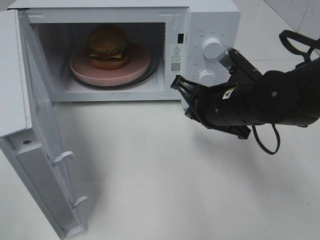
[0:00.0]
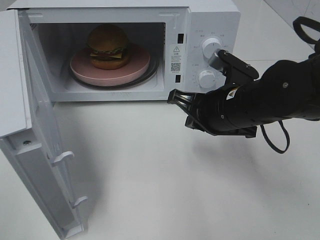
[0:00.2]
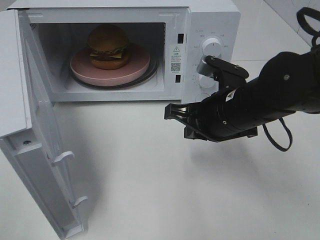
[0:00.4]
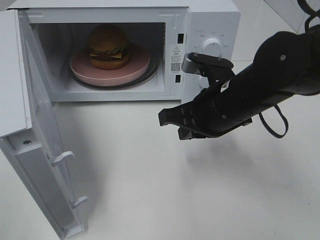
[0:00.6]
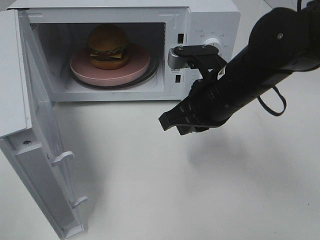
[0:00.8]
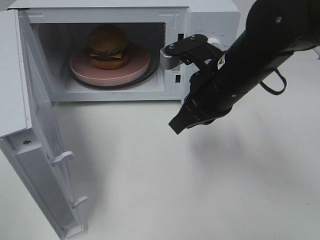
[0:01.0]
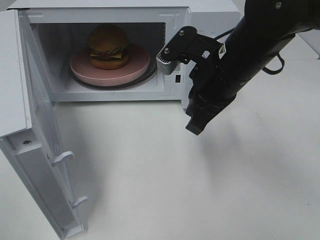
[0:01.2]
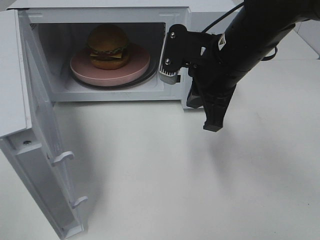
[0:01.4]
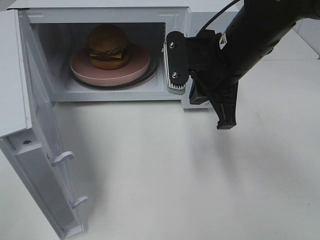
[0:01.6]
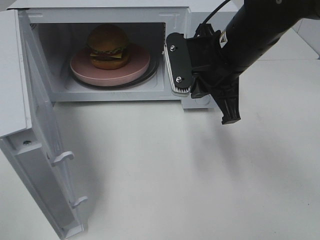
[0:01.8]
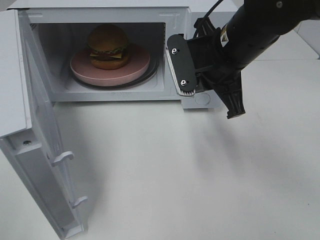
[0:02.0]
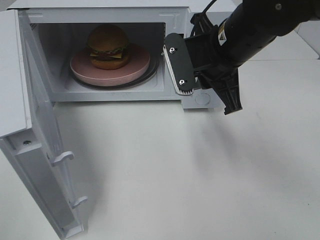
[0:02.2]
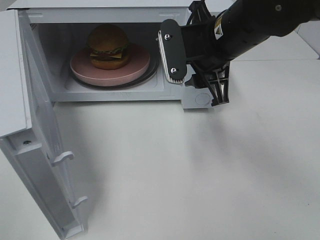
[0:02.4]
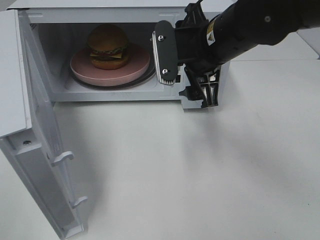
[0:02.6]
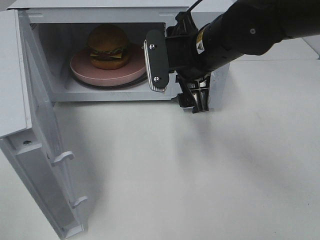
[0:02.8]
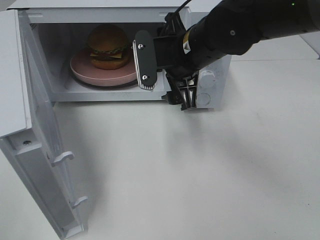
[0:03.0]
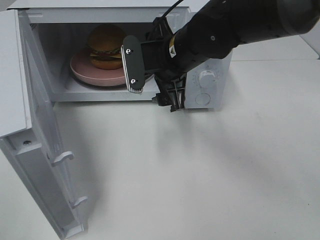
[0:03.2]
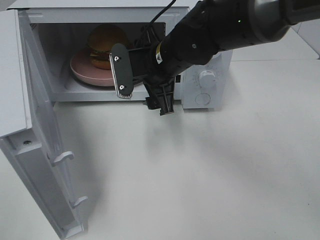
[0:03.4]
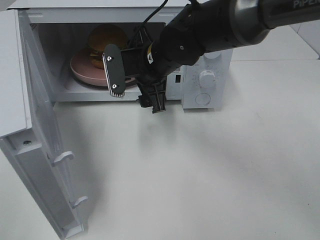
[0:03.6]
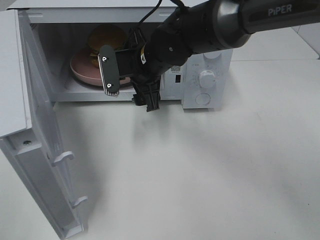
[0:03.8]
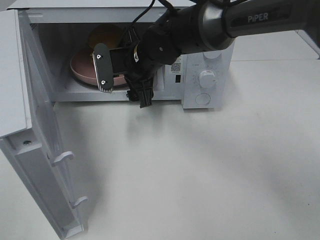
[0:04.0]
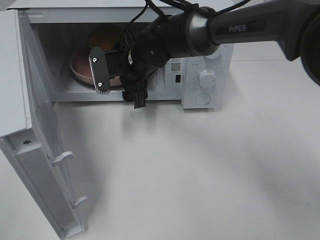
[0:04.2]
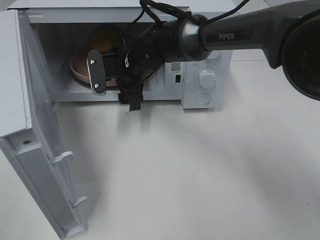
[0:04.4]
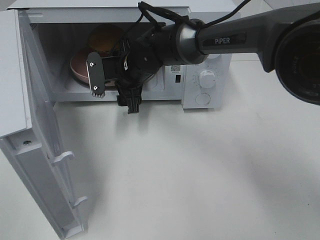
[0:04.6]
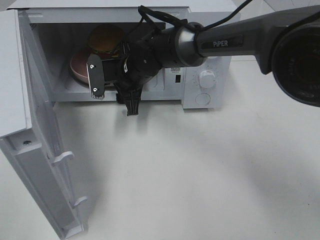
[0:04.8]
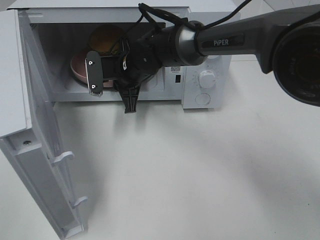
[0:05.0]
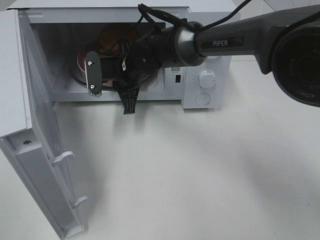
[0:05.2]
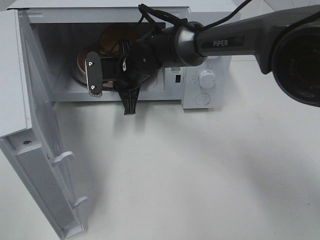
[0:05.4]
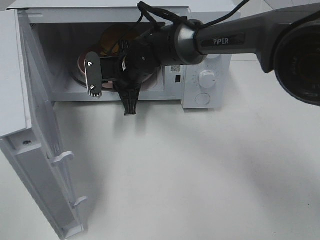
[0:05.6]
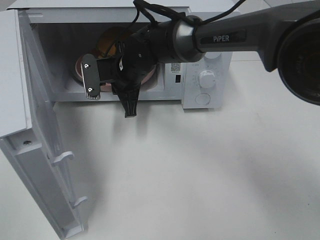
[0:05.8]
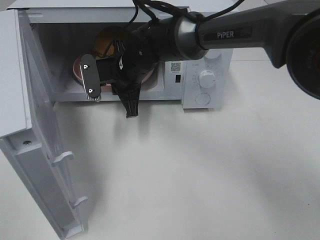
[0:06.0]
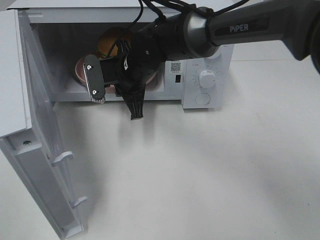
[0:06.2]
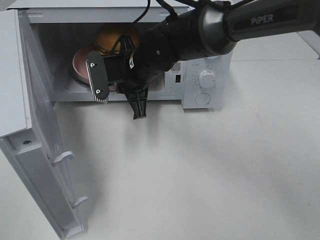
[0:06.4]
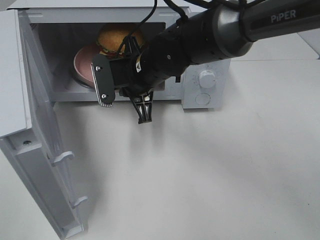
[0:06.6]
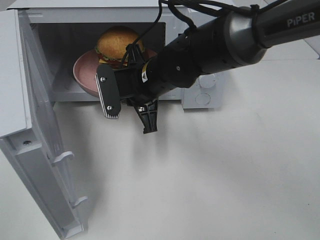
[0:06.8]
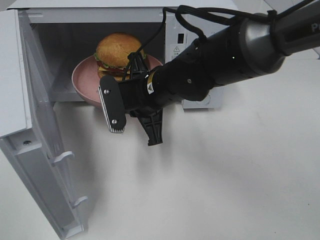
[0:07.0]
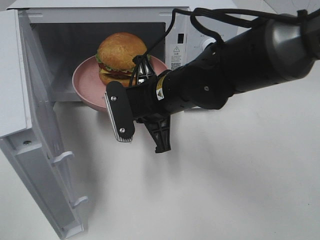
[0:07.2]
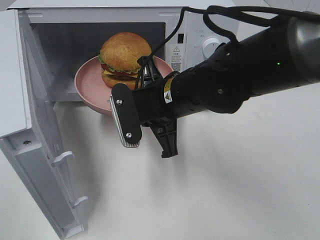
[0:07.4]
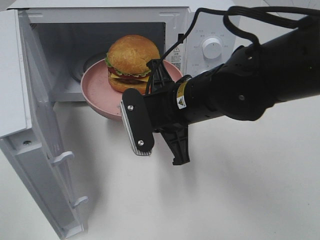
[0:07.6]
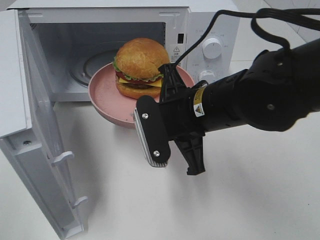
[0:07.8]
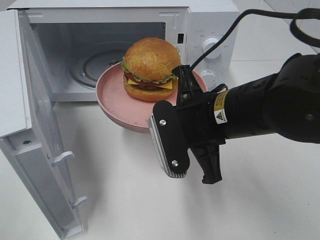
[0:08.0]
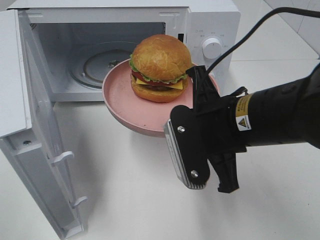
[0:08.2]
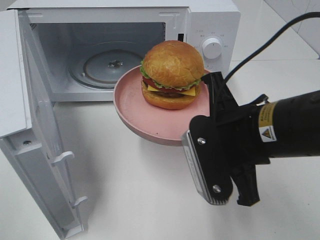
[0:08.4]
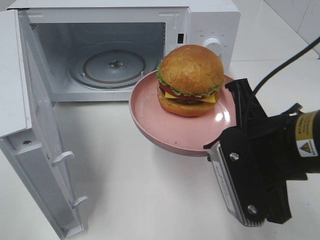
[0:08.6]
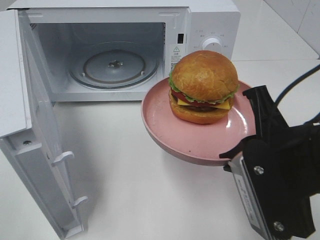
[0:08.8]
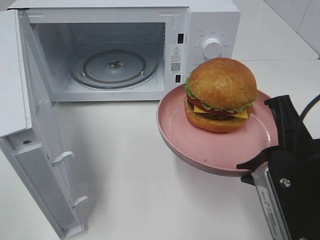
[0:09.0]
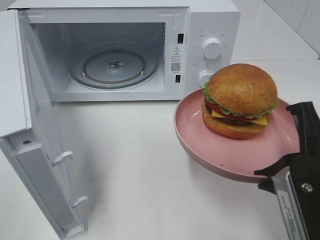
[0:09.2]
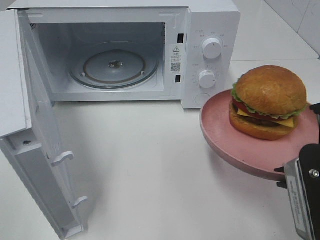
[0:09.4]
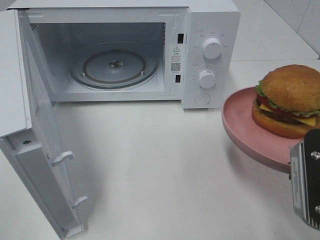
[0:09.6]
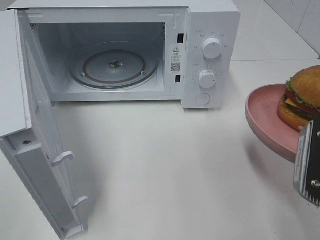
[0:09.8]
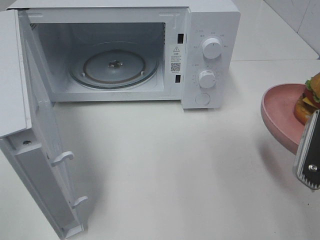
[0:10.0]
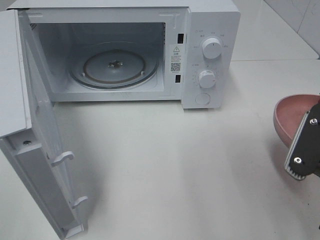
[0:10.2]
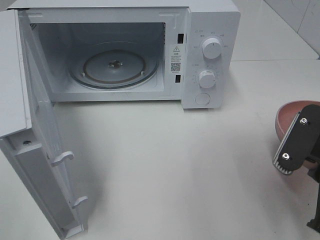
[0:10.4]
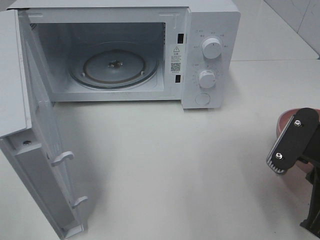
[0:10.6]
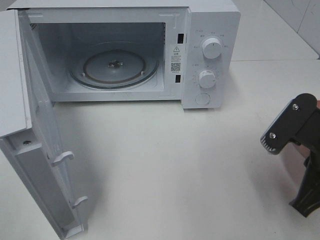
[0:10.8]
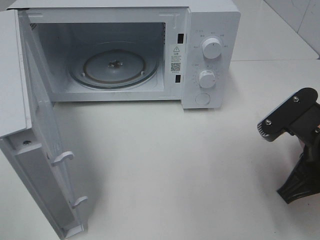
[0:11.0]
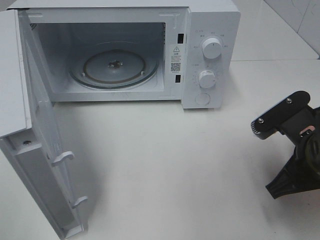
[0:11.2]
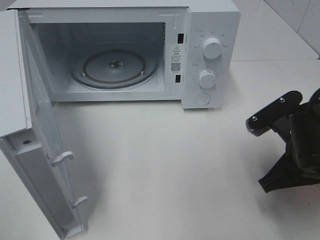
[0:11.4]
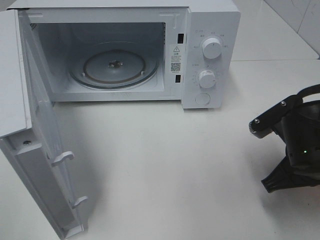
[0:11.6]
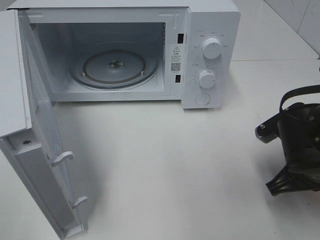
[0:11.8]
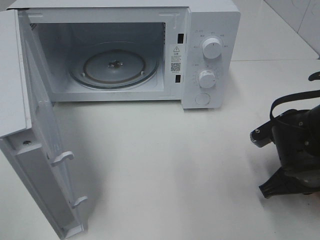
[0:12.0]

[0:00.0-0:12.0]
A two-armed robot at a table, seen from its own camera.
Task of the whole recording: Heat the burger.
Step, 0:00.0 to 0:05.0: Right hand: grab the plate with the hamburger.
0:00.0 to 0:01.6: The right gripper moves upward, about 10 cm.
0:01.6 to 0:03.0: The right gripper shifts by approximately 5 cm, and opens its fingers.
0:03.0 to 0:04.4: The right gripper travels to the left, forward and downward by approximately 15 cm.
0:04.4 to 0:06.0: The right gripper closes up.
0:06.0 to 0:07.6: The right gripper goes approximately 15 cm backward and to the right.
0:07.6 to 0:09.0: The right gripper moves to the right and backward, approximately 20 cm.
0:10.4 to 0:12.0: The right gripper is displaced downward and forward by roughly 10 cm.

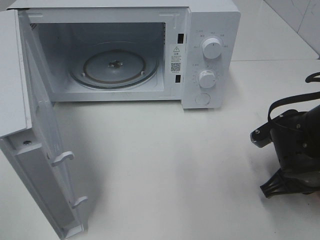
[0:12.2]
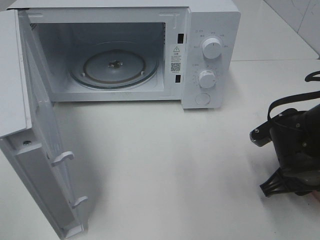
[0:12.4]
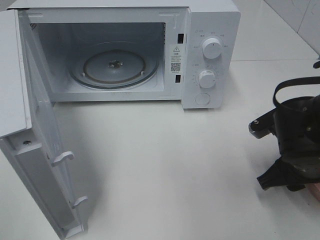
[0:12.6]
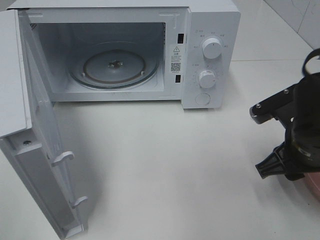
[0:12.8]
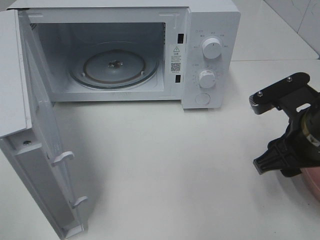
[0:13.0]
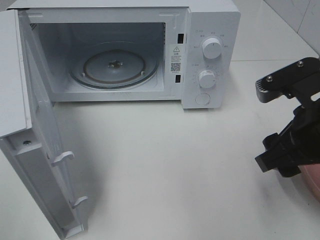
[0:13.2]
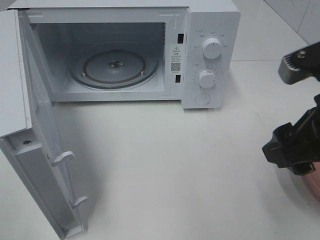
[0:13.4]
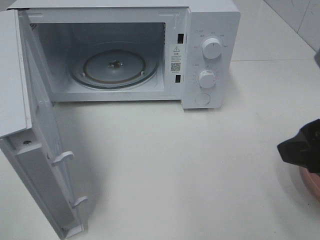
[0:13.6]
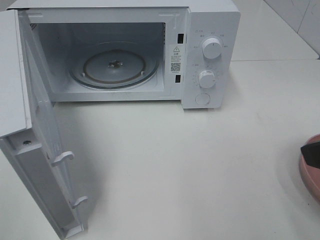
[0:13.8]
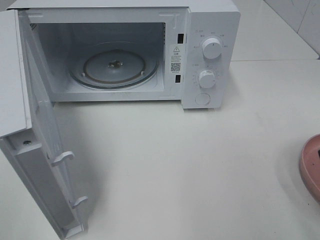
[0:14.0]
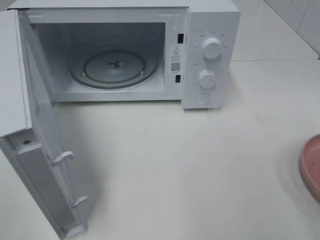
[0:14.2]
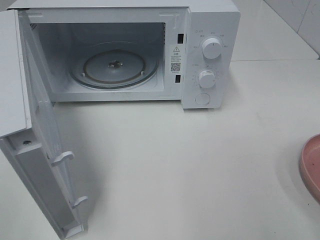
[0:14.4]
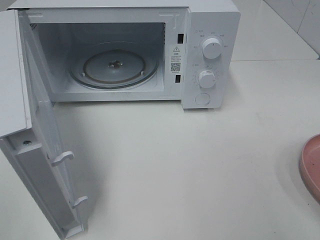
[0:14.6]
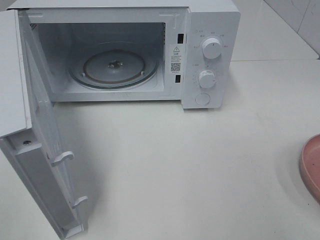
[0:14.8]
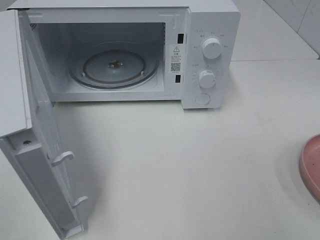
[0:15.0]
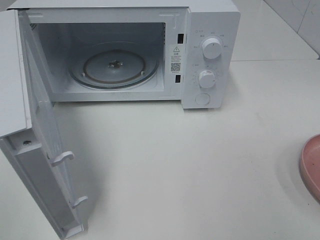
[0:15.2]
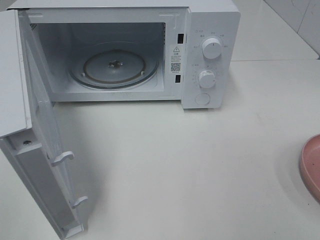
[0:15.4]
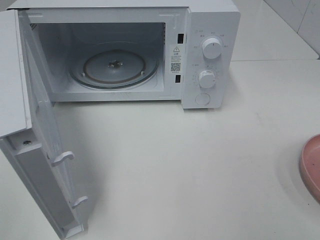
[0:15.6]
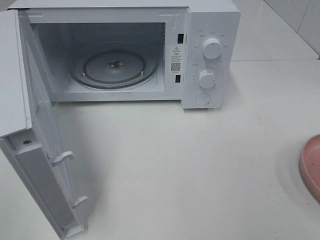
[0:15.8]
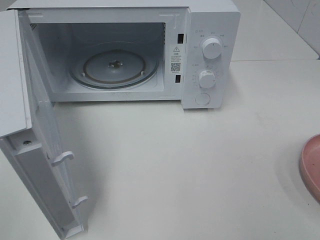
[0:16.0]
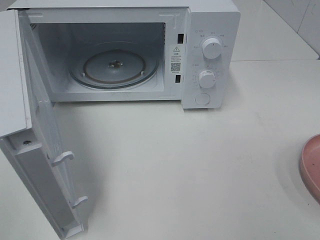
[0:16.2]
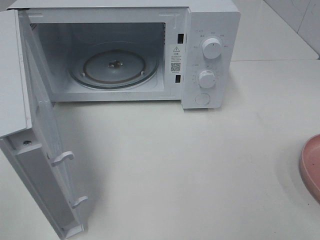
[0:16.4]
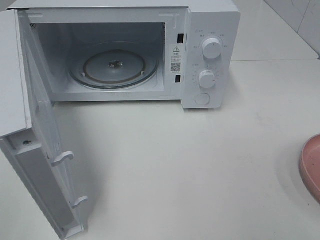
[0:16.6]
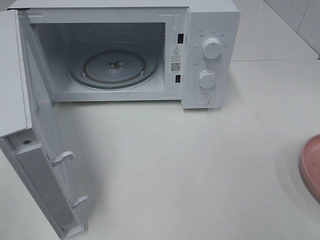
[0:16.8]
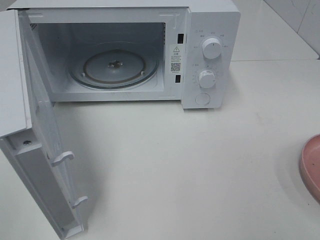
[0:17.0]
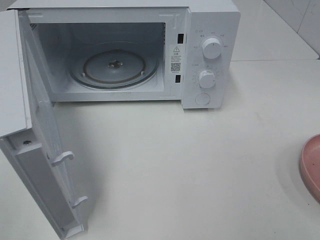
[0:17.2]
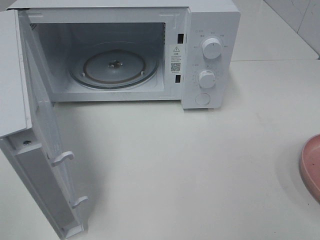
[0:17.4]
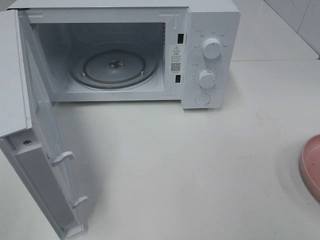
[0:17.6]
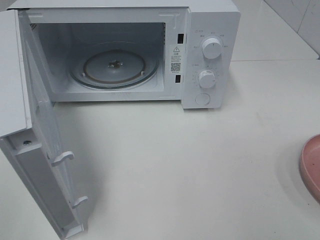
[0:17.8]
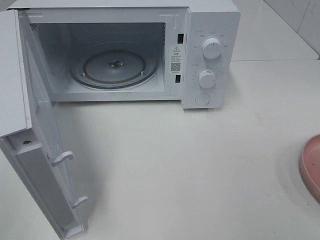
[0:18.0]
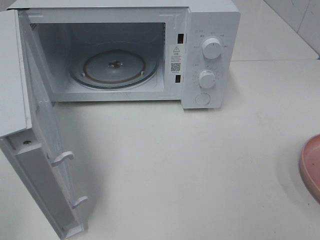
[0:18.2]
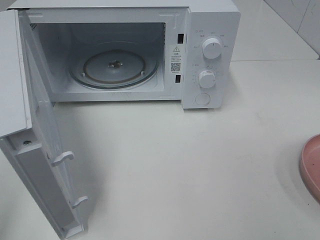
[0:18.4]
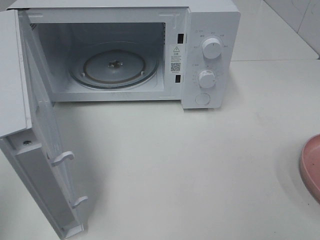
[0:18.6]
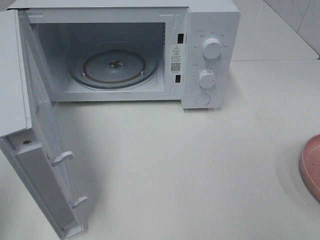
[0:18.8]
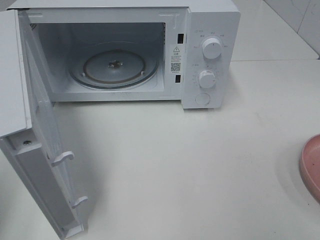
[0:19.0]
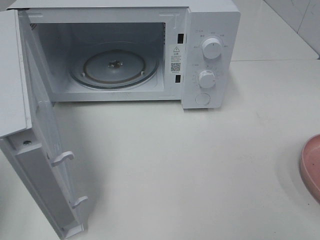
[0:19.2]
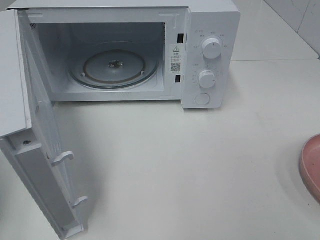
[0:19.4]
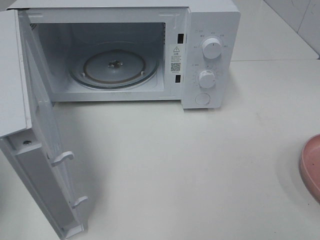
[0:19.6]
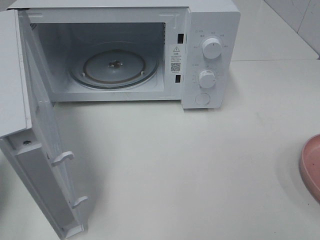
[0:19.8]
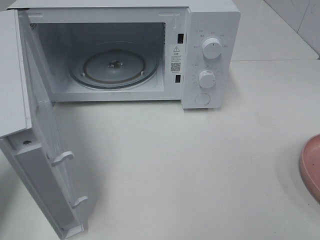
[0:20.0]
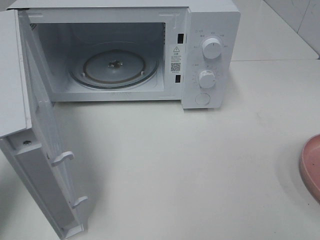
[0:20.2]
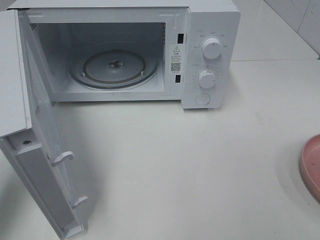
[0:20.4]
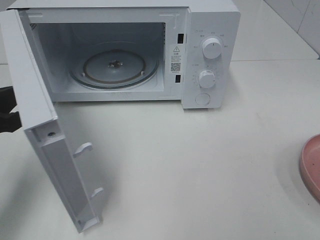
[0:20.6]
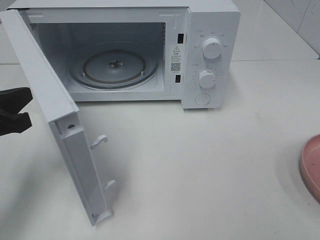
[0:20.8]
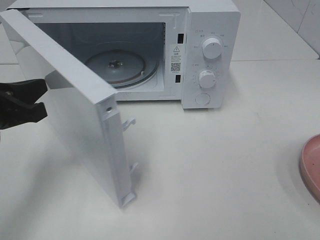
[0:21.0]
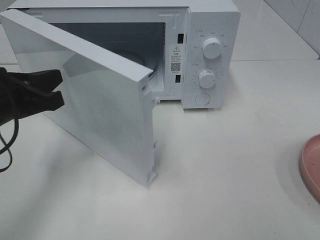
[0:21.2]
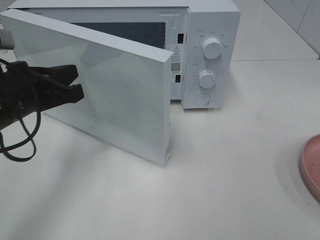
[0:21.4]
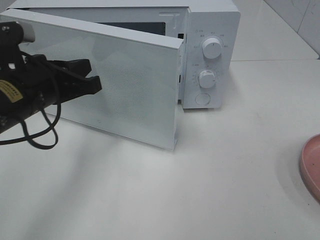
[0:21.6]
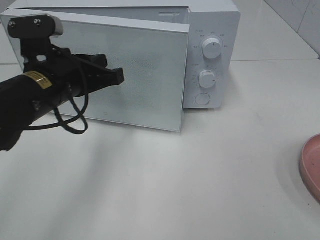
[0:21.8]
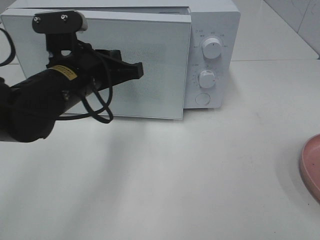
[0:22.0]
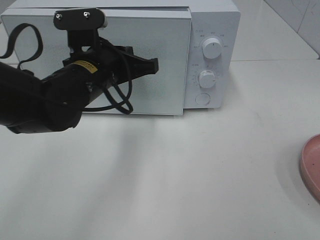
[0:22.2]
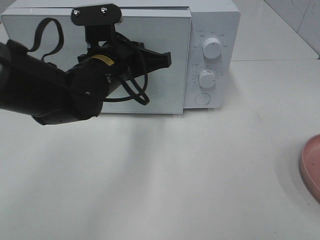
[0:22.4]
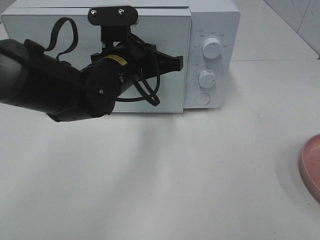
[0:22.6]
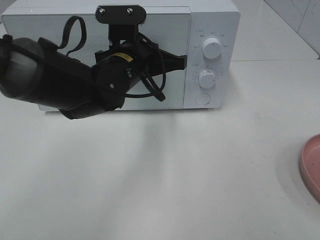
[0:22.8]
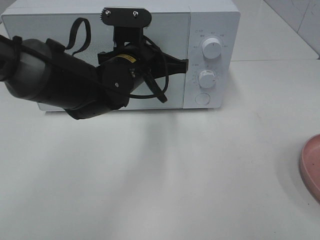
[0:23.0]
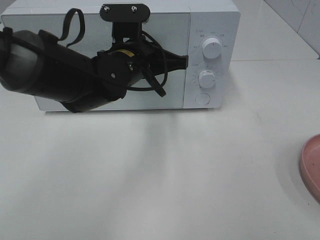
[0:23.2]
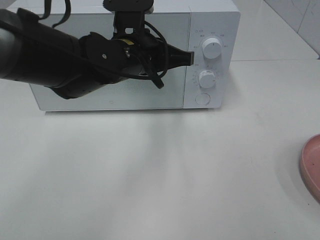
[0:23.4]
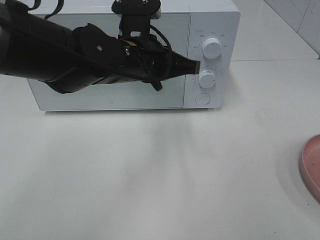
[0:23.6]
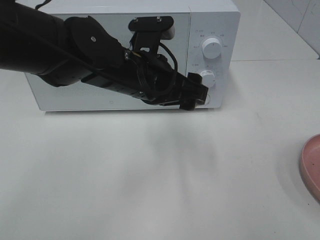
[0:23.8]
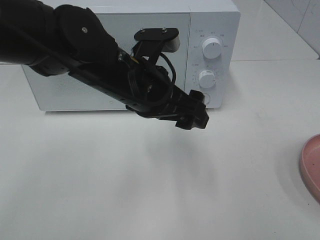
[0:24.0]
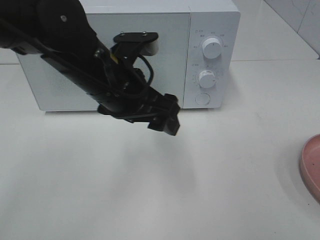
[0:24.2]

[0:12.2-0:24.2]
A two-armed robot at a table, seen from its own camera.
Task of the whole recording: Heat the burger.
Step, 0:12.6 to 0:23.4: Left hand: close the microwave door.
0:12.2 to 0:13.8: The right gripper is displaced upward and backward by roughly 20 cm, and opens up.
0:13.8 to 0:15.2: The right gripper is displaced backward and to the right by some 10 cm.
0:18.2 to 0:19.8: The left gripper goes about 20 cm forward and downward, and closes.
0:19.8 to 0:21.2: The left gripper shifts about 15 cm to the right and forward.
0:21.2 to 0:22.6: The left gripper moves to the right and forward, about 20 cm.
0:22.6 to 0:24.2: The left gripper goes some 5 cm backward, and opens its fingers.
